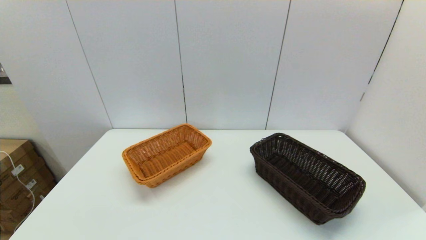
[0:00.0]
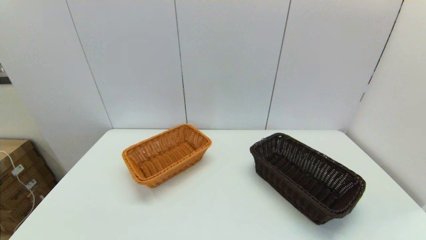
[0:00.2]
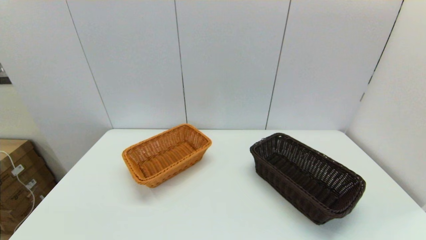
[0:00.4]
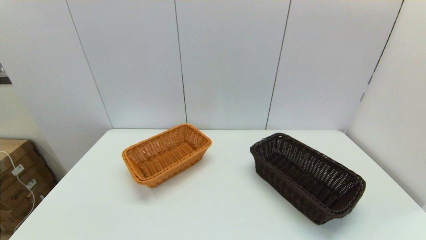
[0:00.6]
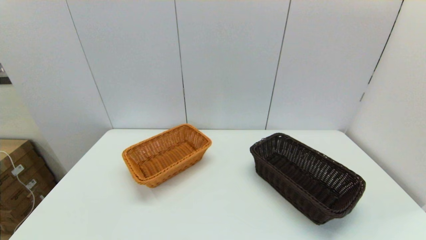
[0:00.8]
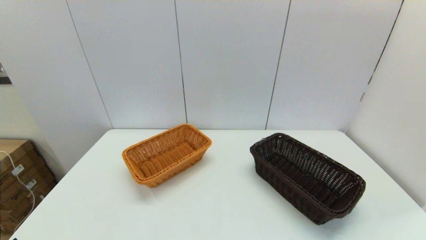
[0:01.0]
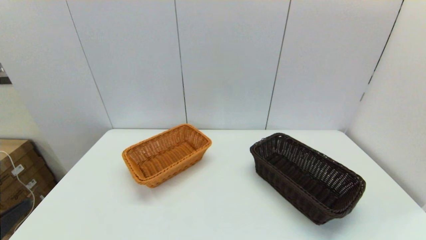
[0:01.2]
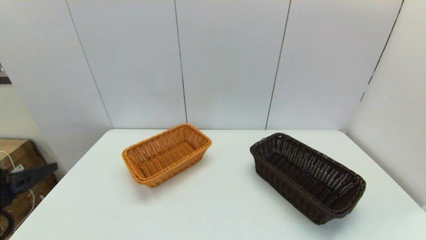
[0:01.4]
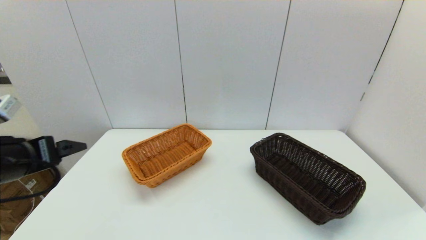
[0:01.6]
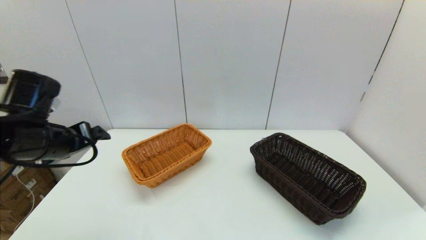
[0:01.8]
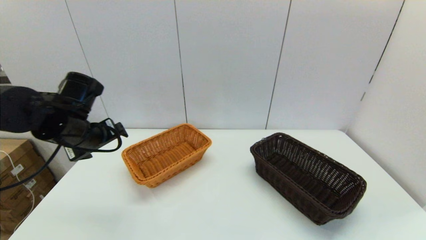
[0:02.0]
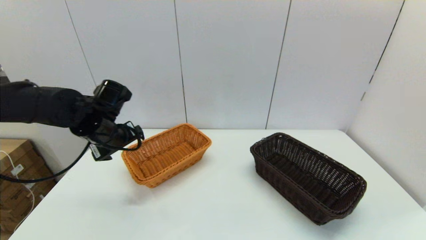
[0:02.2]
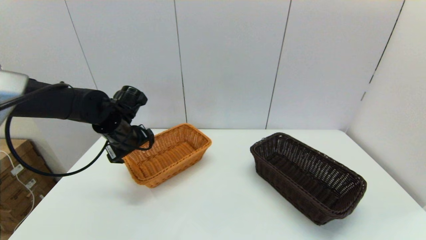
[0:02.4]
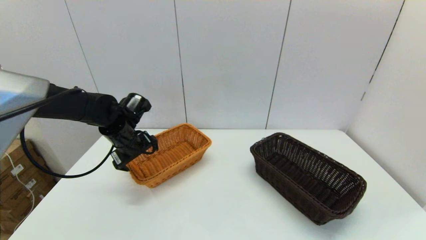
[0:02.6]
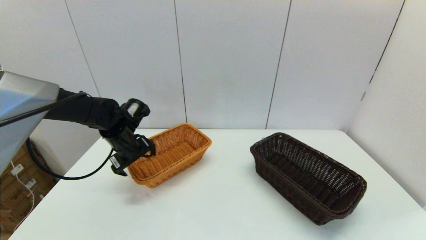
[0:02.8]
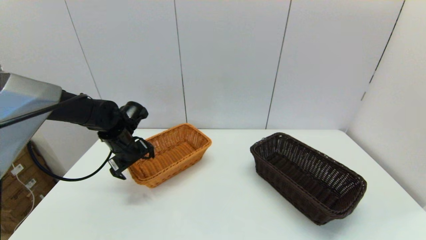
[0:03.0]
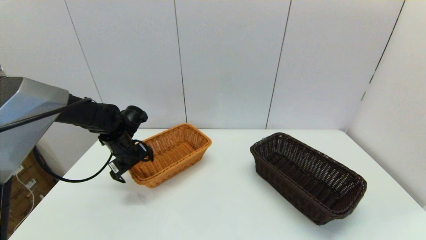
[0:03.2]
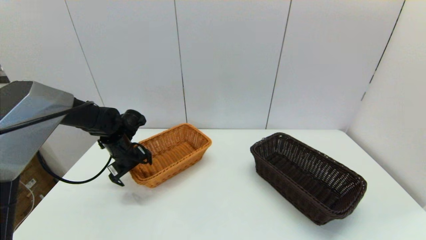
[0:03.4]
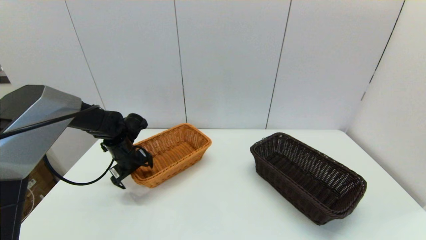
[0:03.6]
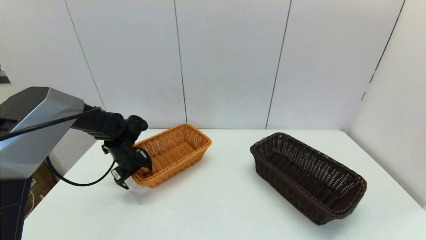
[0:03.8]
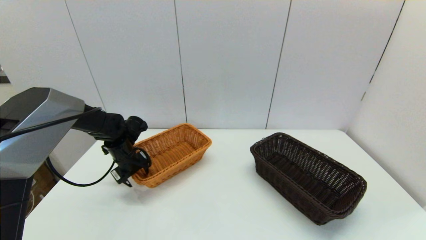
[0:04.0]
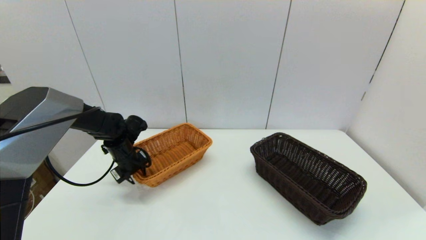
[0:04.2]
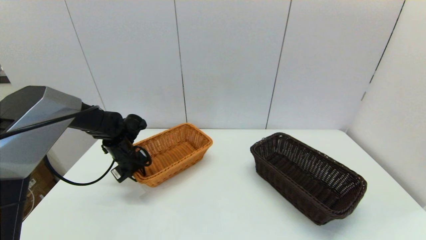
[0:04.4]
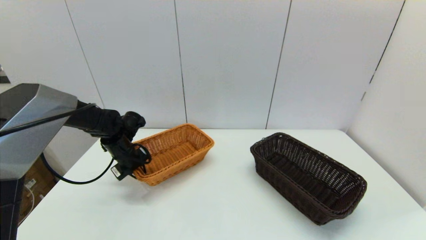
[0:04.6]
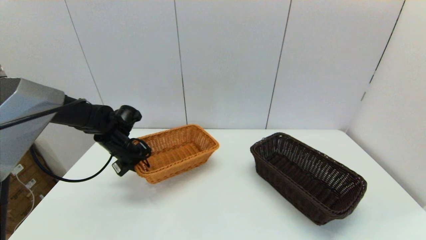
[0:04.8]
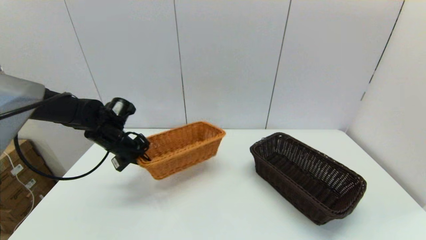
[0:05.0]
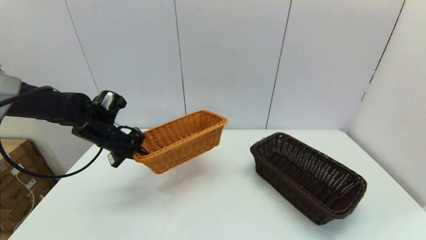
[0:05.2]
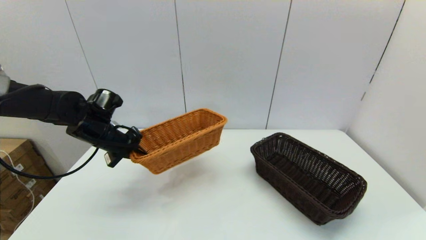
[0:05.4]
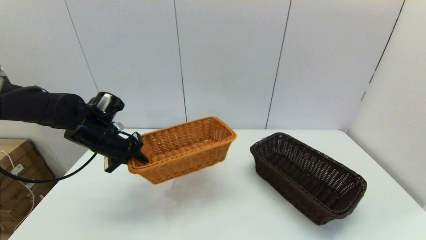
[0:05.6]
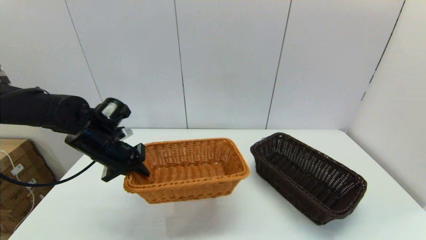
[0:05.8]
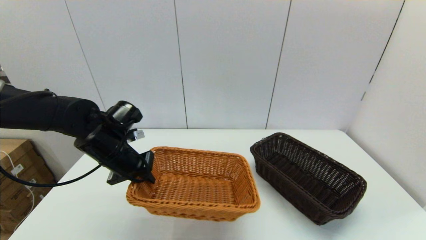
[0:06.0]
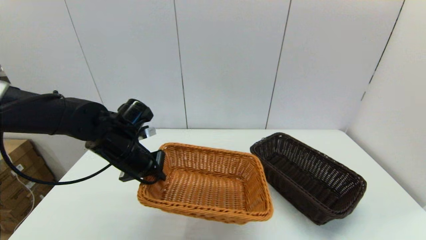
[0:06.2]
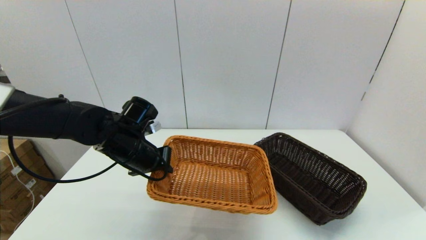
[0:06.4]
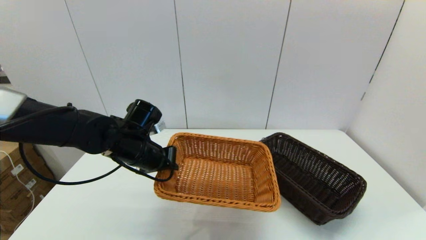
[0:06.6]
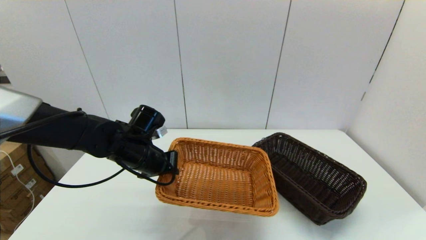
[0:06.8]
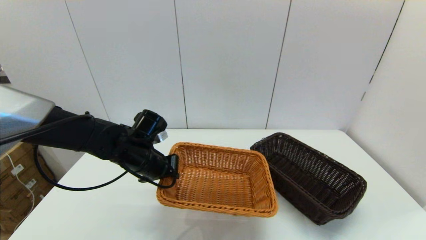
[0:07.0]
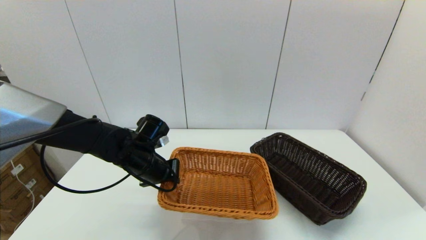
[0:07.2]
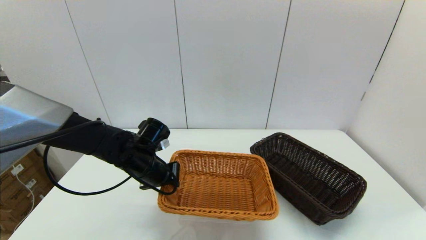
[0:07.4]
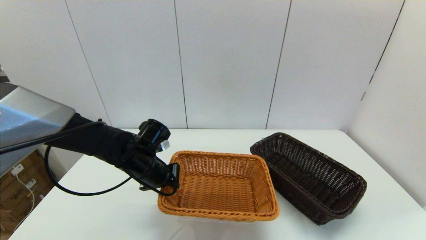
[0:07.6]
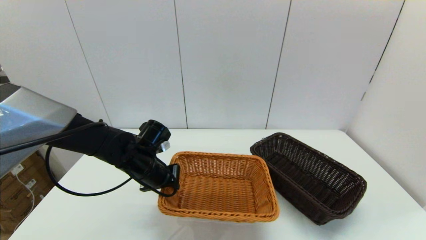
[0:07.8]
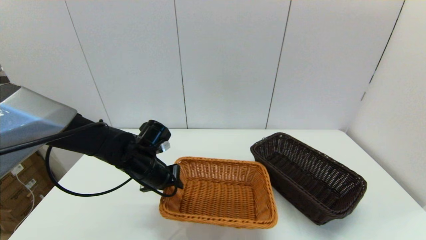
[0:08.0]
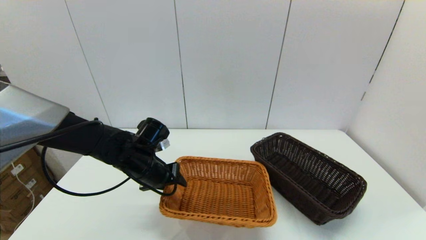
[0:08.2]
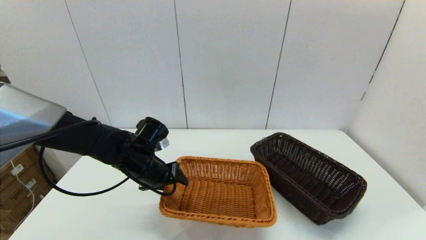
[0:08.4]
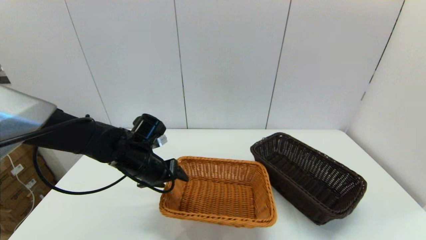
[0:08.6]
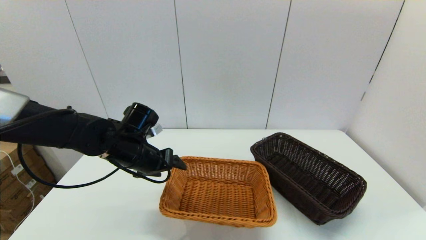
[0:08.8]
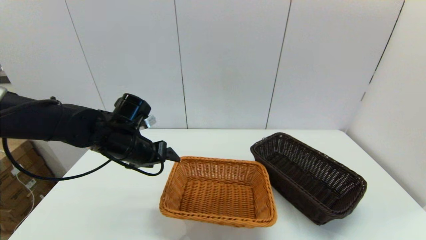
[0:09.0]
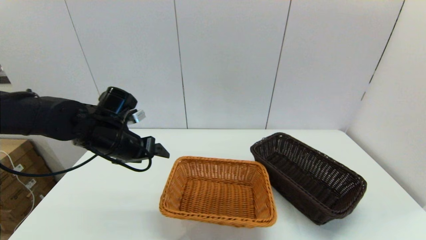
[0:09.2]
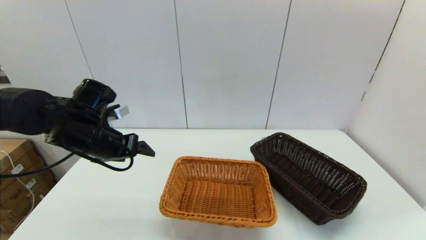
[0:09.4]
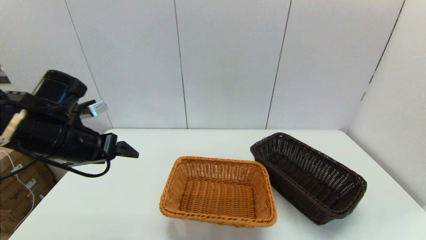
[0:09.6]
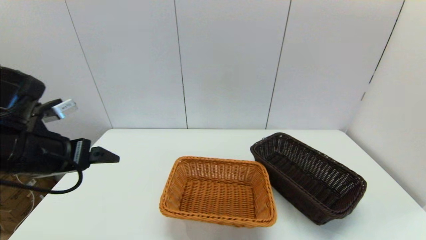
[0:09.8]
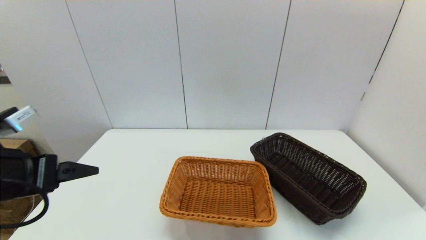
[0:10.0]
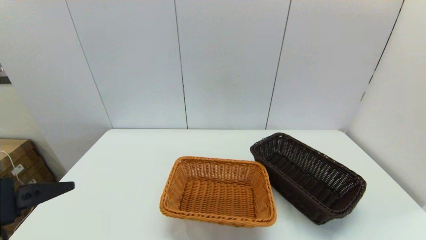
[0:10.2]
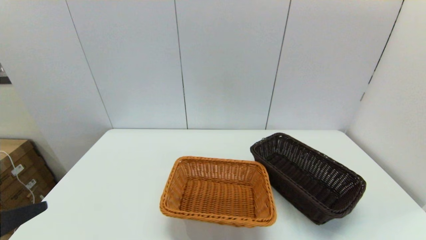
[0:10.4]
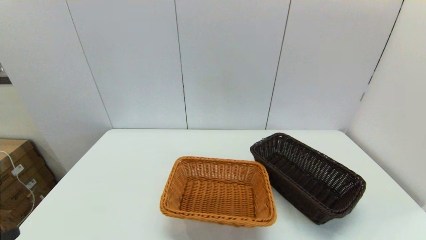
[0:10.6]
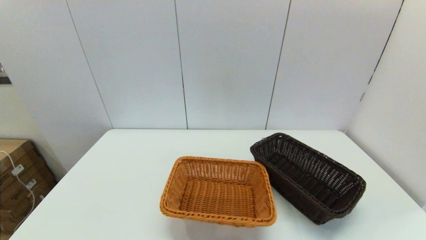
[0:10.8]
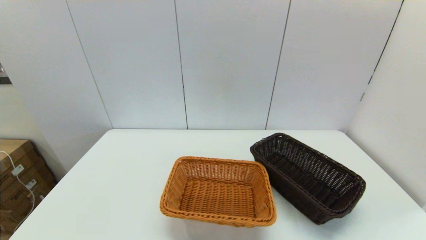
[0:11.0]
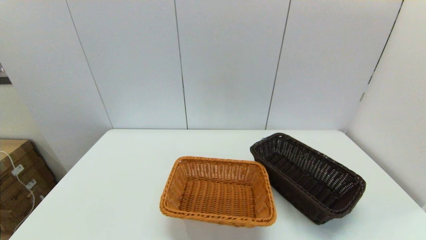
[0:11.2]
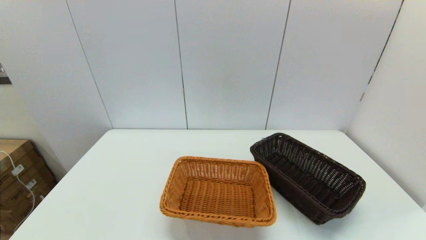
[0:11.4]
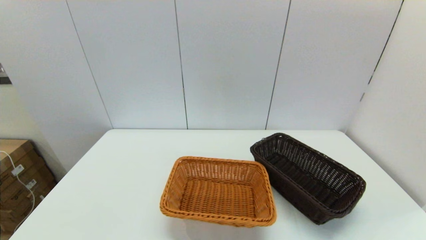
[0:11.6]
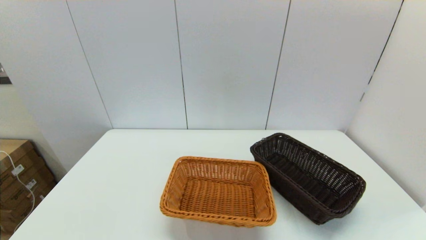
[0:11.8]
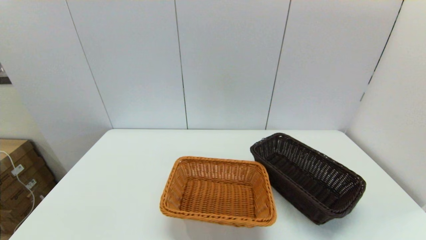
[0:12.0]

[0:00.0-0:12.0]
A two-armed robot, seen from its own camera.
Task of the whole recording: stack a basket on top of another basket.
Step, 0:01.0 to 0:04.6: Grasp the light basket with the left gripper.
Step, 0:04.8 to 0:09.2: Place the light basket on the middle of the table with the left gripper.
0:00.0 to 0:01.6: The left gripper shifts approximately 25 cm forward and upward.
0:01.6 to 0:03.0: The left gripper moves forward and downward, about 25 cm.
0:03.0 to 0:04.4: The left gripper moves approximately 5 cm, and closes its fingers.
0:04.4 to 0:06.0: The left gripper shifts about 10 cm backward and upward.
0:06.0 to 0:07.6: The left gripper is displaced downward and to the right by about 10 cm.
0:07.6 to 0:09.0: The left gripper heads upward, covering approximately 5 cm, and opens up.
0:09.0 to 0:10.4: The left gripper is displaced backward and to the left by approximately 30 cm.

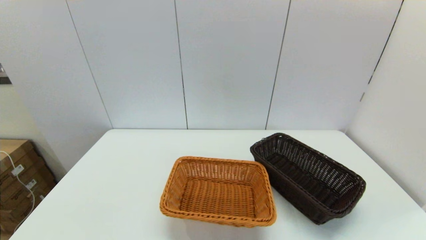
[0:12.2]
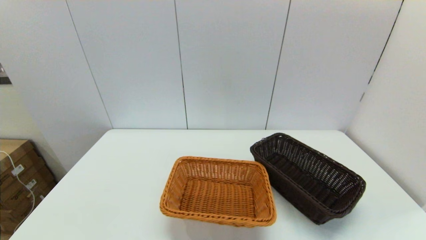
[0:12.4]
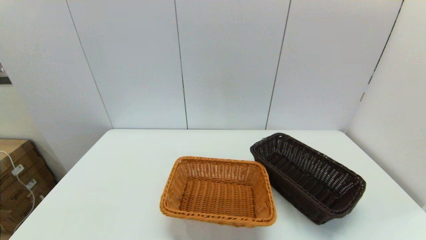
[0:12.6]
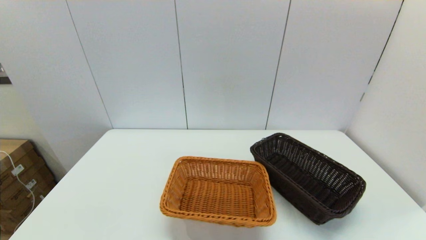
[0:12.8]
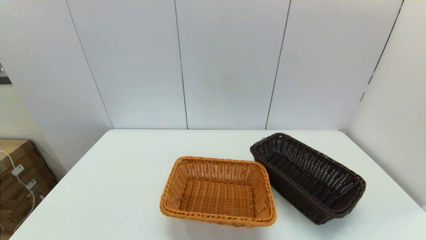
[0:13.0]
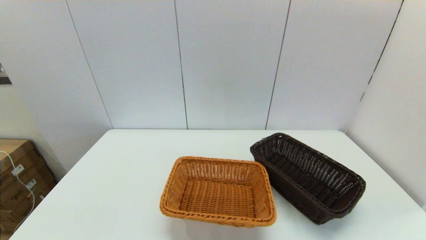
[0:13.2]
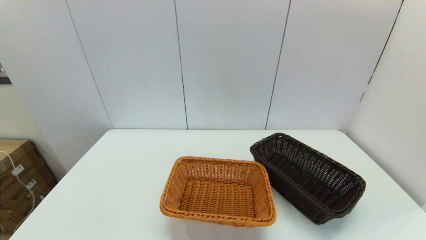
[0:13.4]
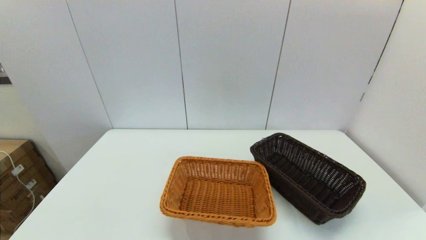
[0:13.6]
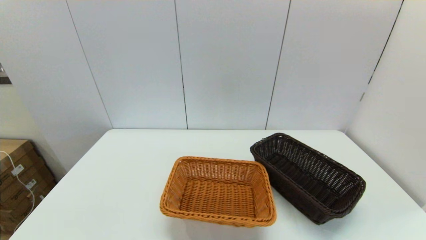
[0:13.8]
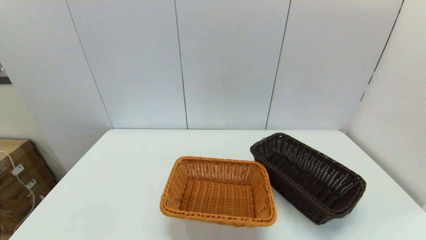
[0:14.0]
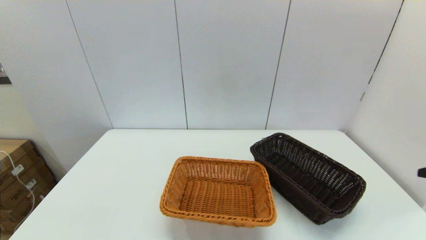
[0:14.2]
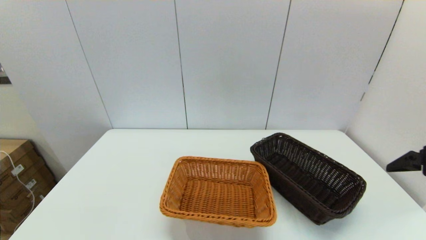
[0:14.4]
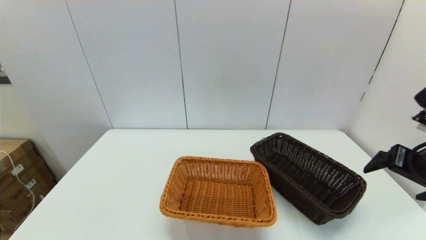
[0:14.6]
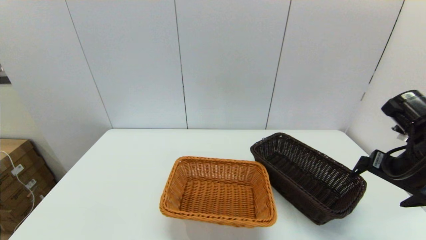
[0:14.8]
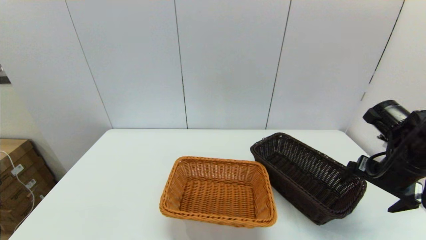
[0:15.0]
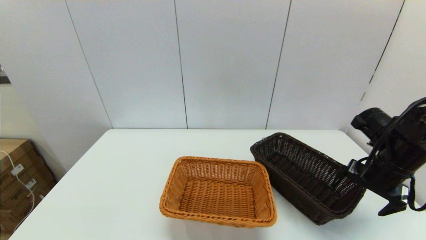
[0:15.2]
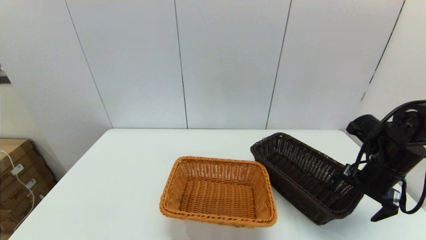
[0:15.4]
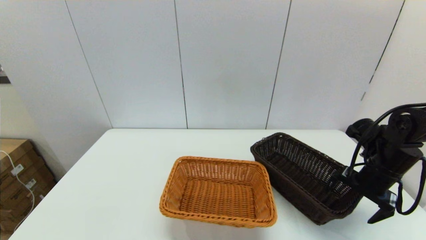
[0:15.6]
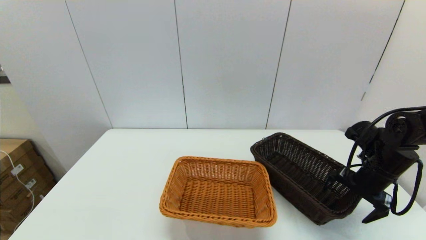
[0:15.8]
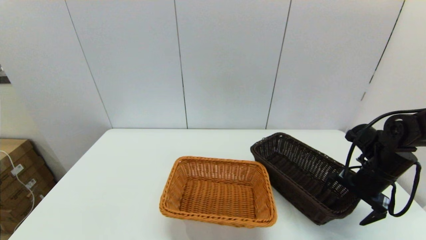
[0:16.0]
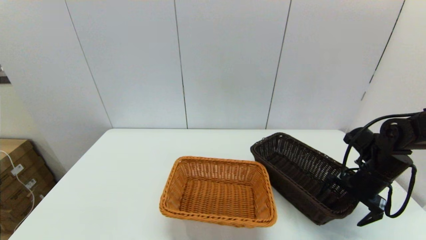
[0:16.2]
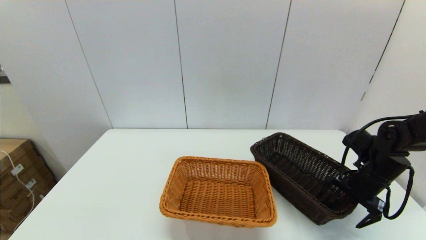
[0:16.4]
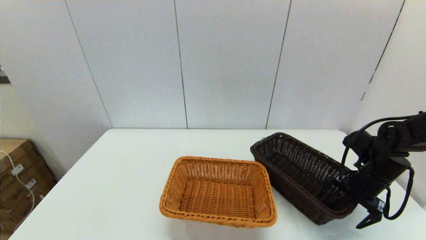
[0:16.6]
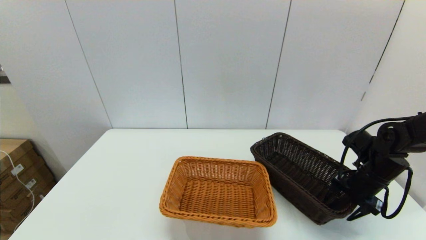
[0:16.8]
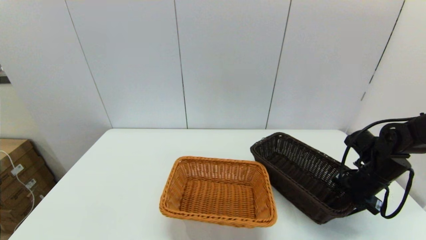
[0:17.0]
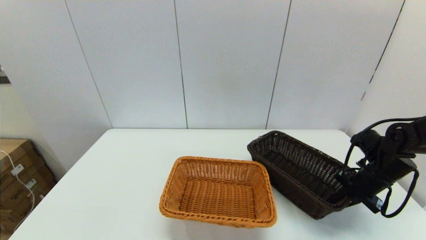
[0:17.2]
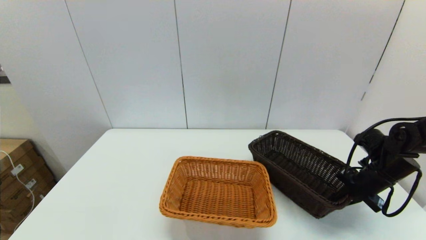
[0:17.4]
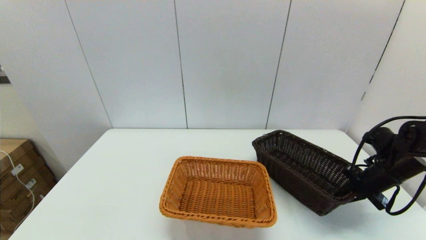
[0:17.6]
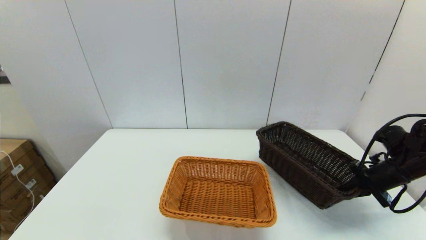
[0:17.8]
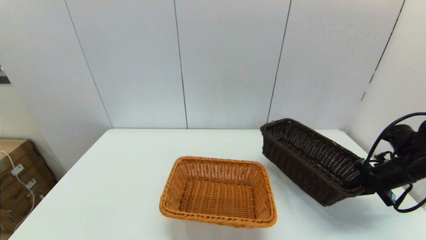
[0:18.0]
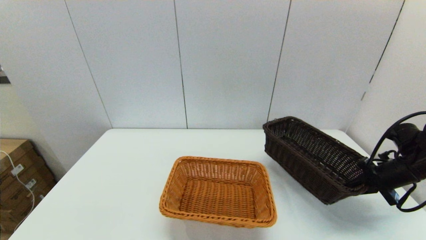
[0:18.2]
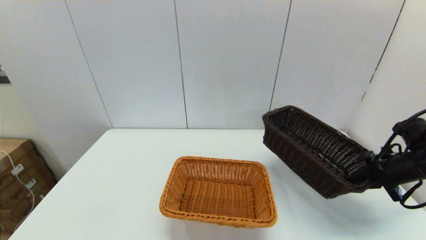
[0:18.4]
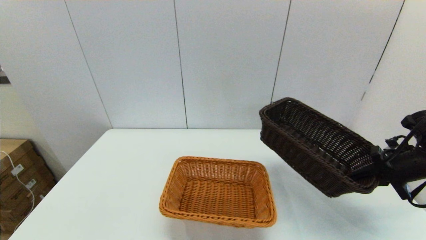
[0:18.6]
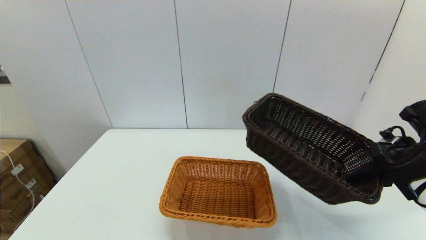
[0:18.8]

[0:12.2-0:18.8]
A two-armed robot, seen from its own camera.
Task of the whole recording: stack a basket on top of another basket.
Step, 0:12.2 to 0:17.0: Grasp the dark basket with the right gripper.
0:13.8 to 0:15.4: The right gripper is displaced forward and downward by approximately 30 cm.
0:15.4 to 0:17.2: The right gripper is displaced downward by about 5 cm, and closes up.
0:17.2 to 0:18.8: The right gripper shifts about 15 cm upward and backward.
